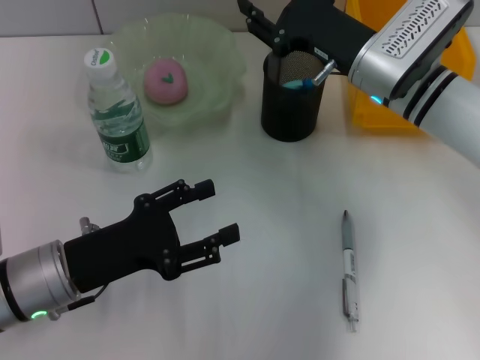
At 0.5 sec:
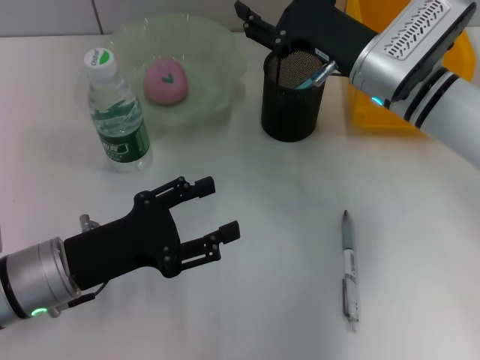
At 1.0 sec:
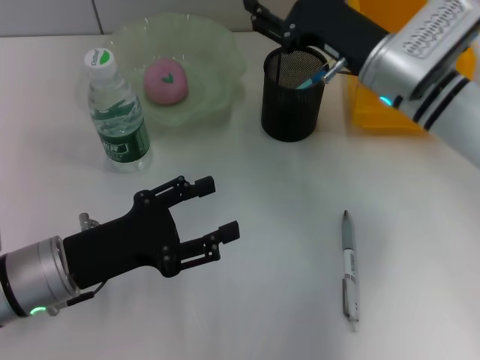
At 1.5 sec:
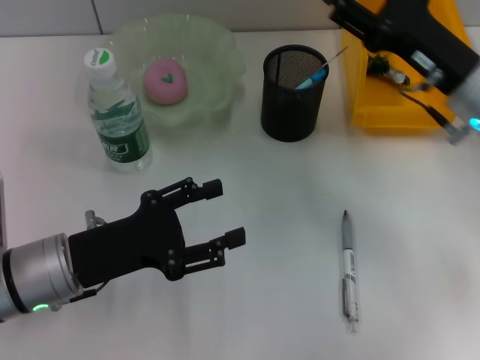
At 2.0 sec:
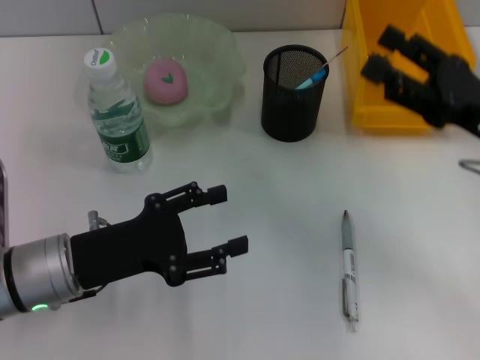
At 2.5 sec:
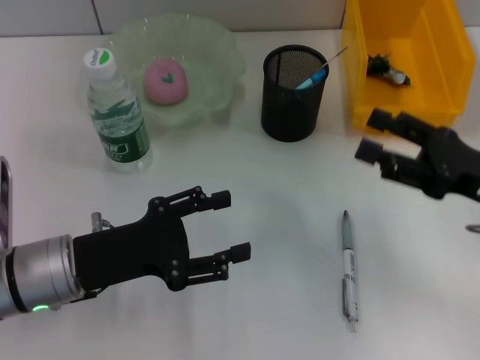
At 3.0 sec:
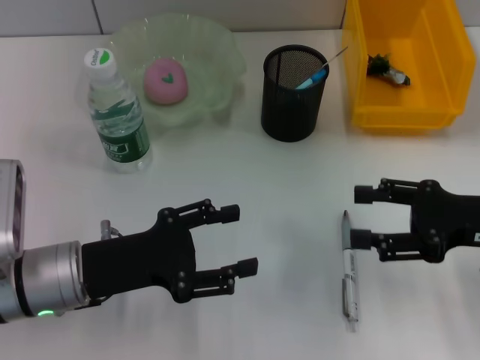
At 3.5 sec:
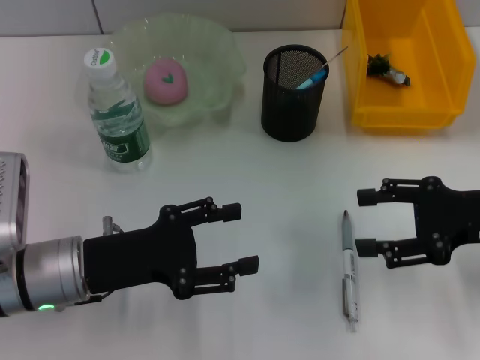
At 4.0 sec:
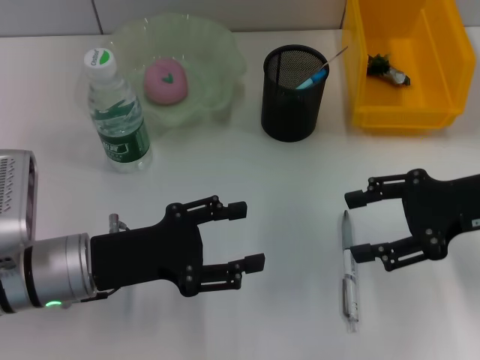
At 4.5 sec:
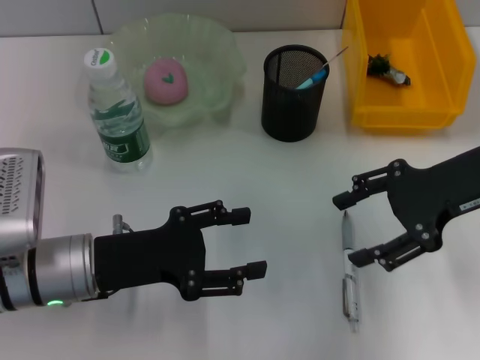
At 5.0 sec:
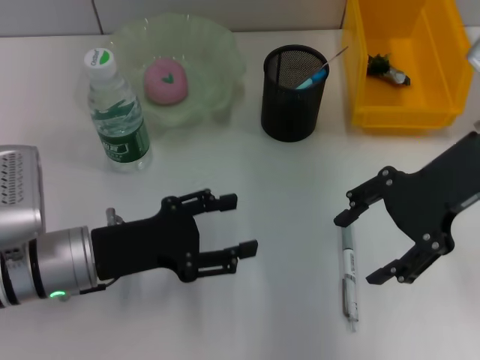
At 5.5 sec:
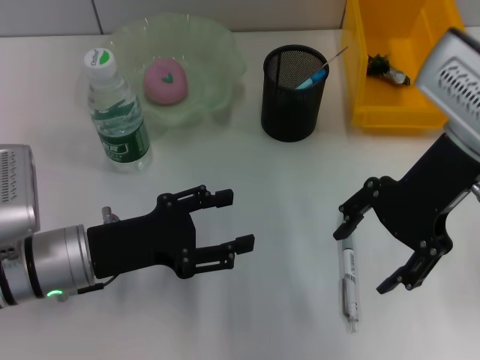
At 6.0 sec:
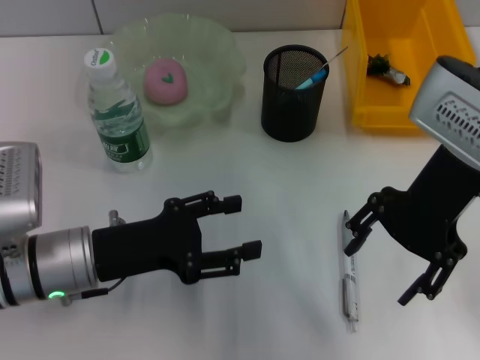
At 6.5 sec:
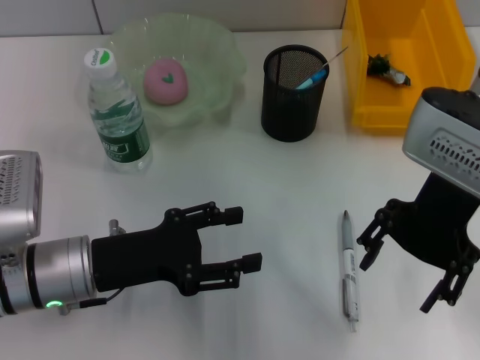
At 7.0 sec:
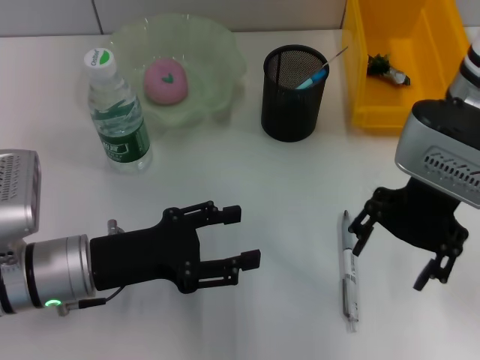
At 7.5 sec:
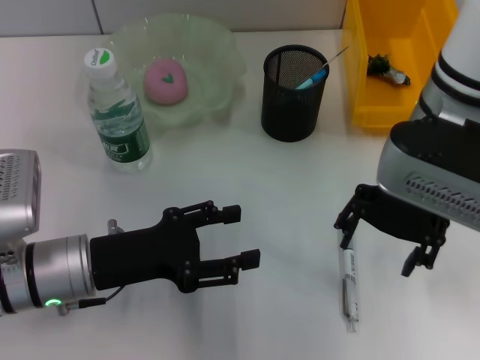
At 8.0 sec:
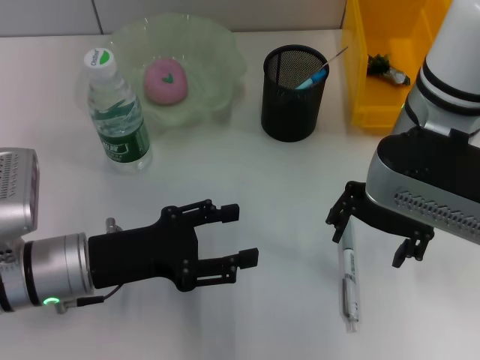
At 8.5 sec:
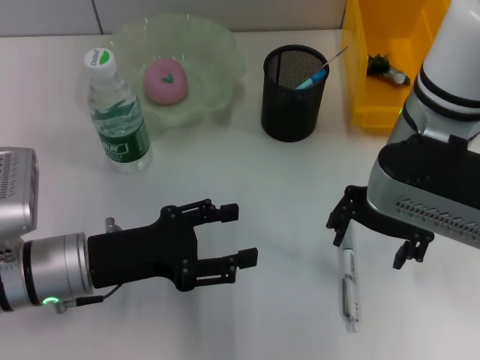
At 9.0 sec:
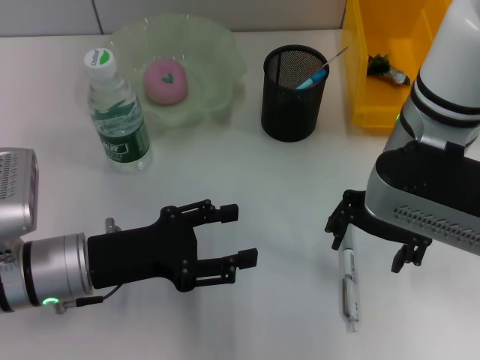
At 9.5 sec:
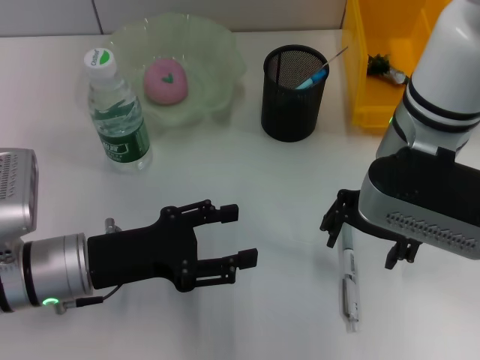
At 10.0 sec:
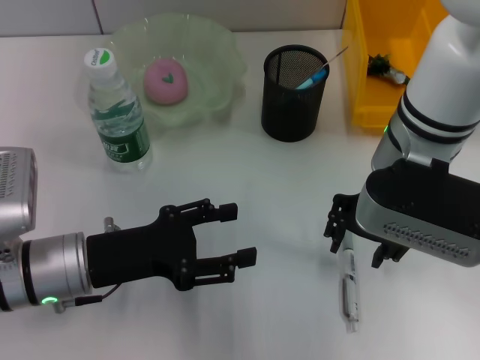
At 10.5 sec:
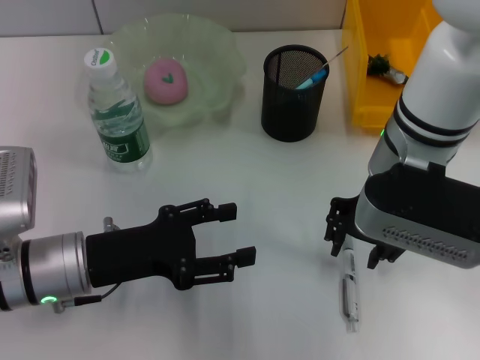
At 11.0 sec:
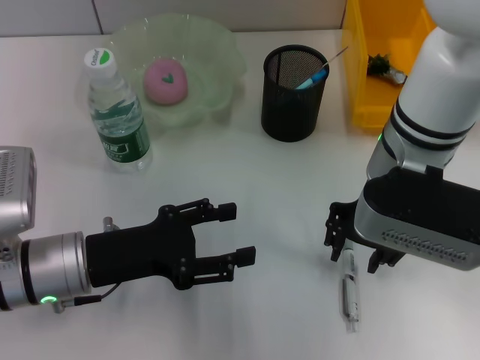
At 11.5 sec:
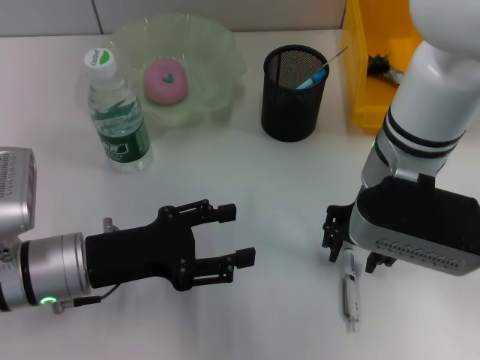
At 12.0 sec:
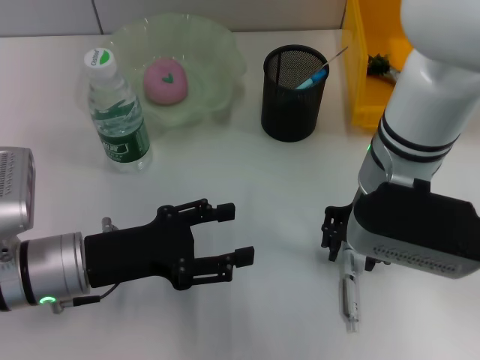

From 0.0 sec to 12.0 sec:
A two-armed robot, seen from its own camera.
From 0.0 sec to 2.0 sec: The right gripper moves to the right and backward, about 15 cm, and opens.
From 4.0 sec to 6.0 sec: The right gripper heads to the left and upward, covering roughly 15 cm.
From 6.0 sec to 8.0 sec: The right gripper shifts by some 5 cm.
From 8.0 sec to 10.0 sec: The grippers make only small movements.
From 10.0 sec to 12.0 sec: The right gripper closes up.

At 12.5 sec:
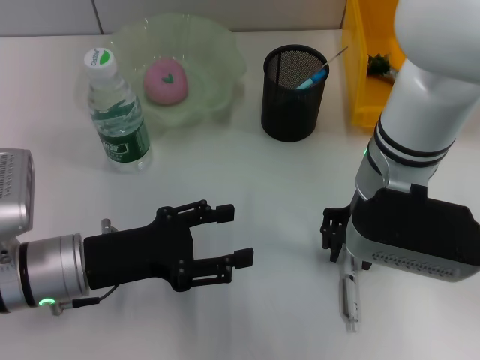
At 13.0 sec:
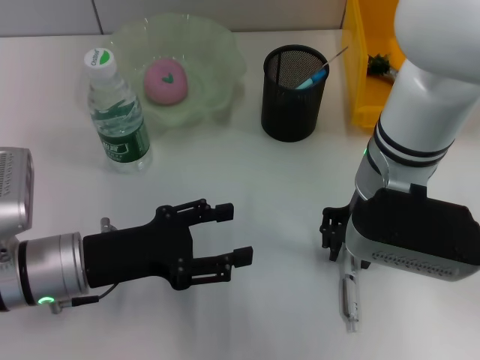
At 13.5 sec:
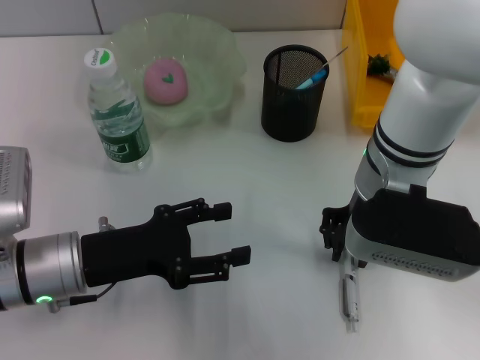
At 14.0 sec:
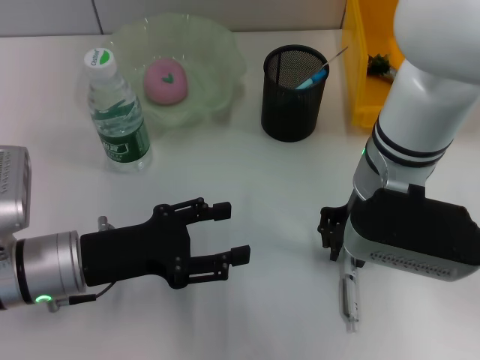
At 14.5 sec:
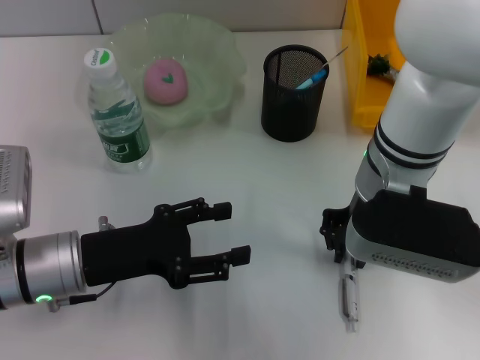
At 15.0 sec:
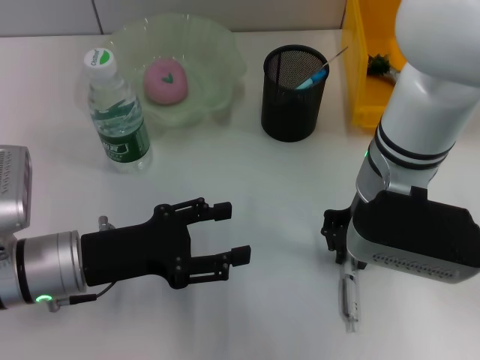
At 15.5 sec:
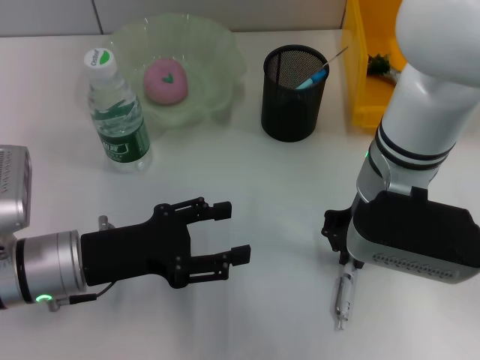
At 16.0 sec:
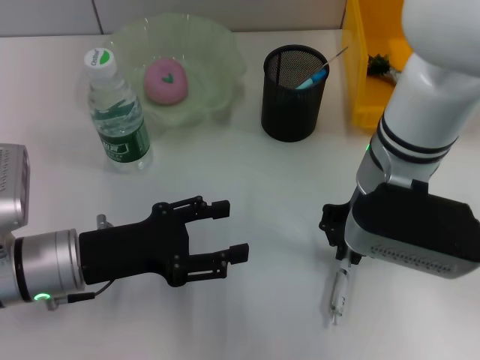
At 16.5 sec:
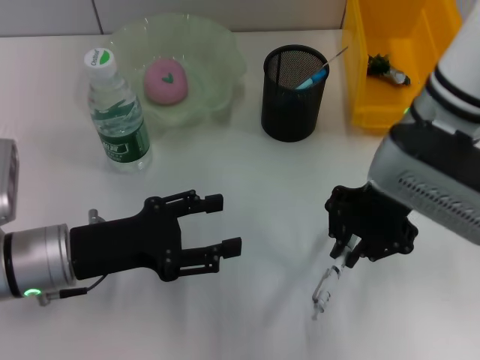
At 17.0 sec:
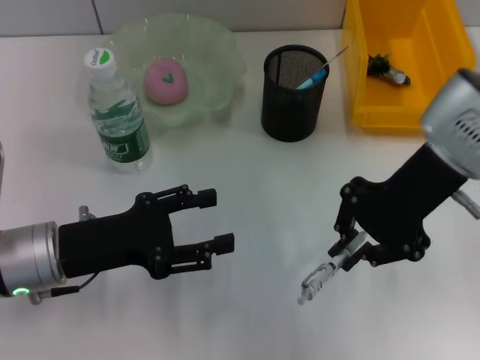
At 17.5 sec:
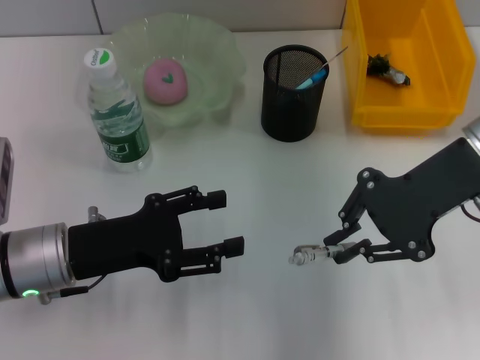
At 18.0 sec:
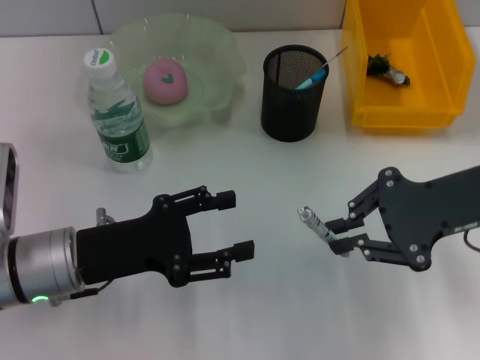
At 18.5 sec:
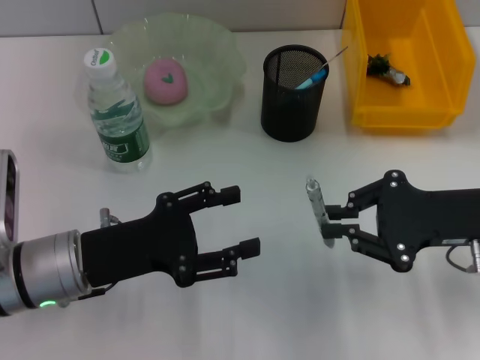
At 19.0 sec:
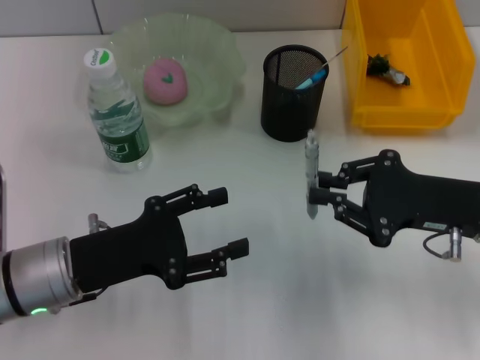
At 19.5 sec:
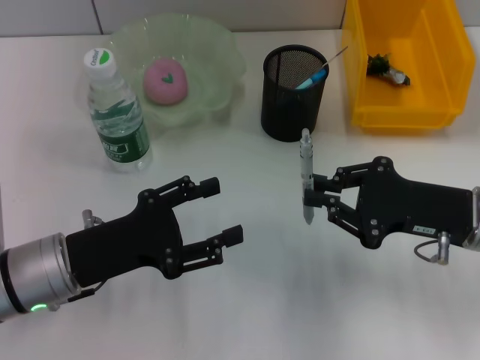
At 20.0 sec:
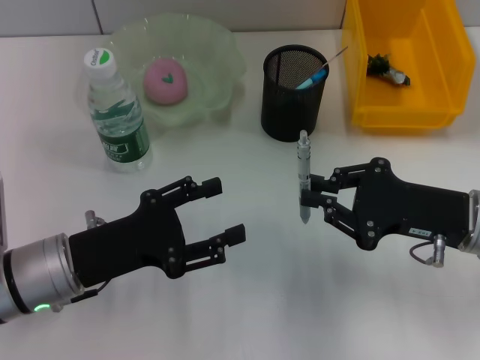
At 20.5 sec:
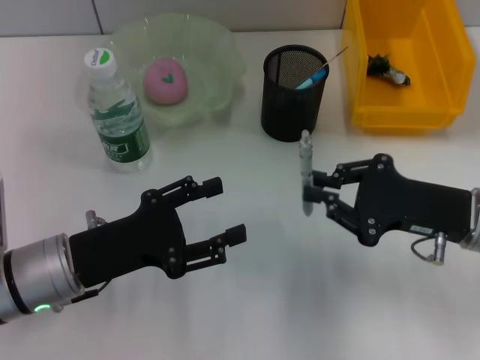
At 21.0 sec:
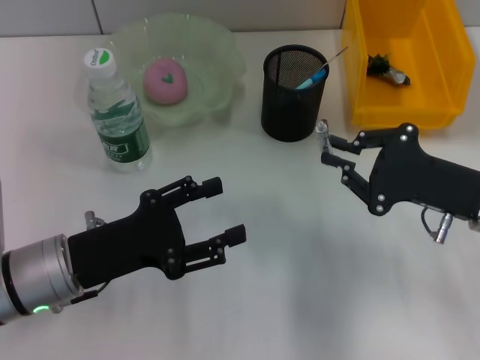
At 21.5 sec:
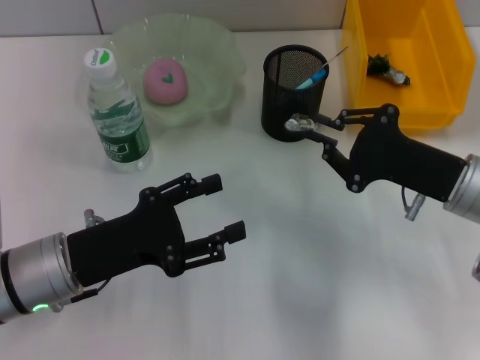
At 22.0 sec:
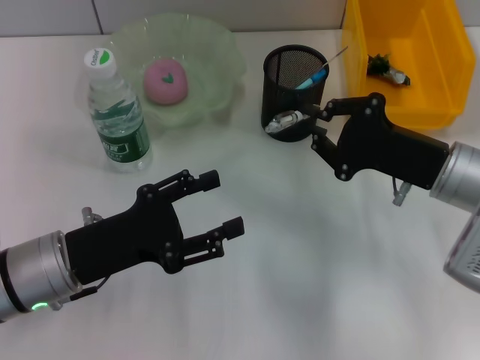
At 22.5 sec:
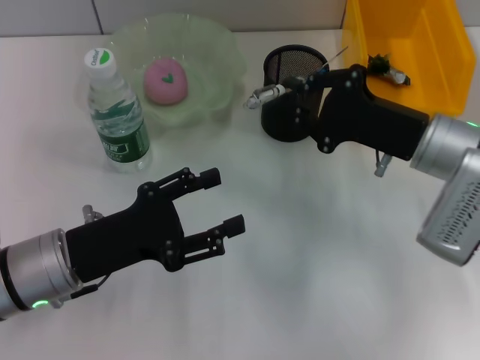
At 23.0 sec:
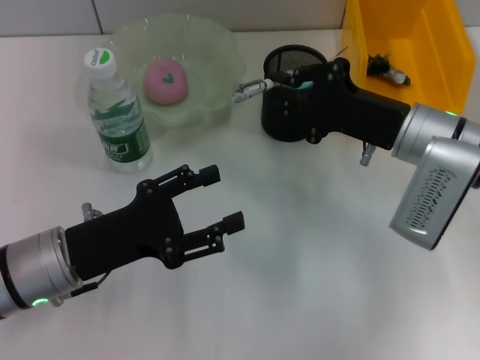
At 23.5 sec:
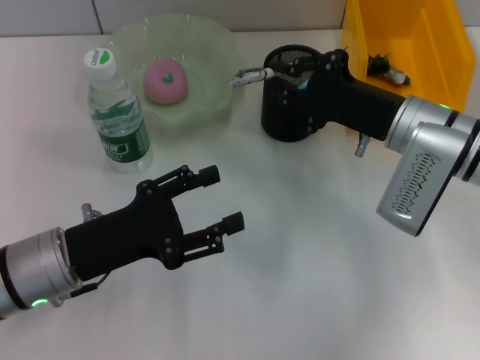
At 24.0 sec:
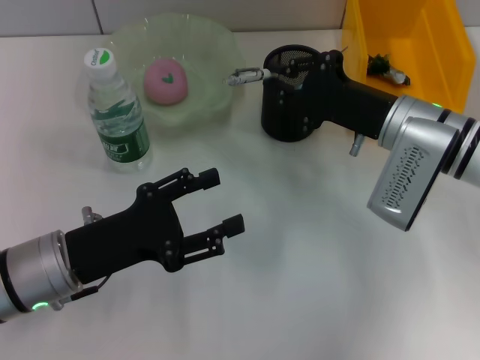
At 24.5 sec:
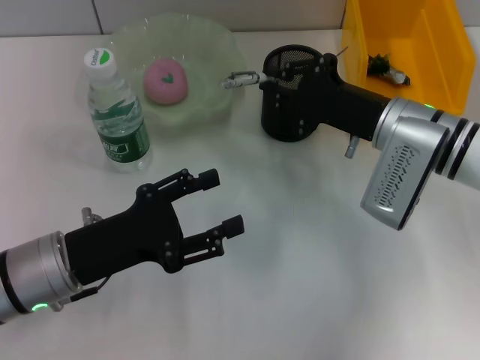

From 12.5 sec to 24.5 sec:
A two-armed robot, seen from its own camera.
Step, from 12.5 sec to 15.0 sec: Grab the gray spring-action pen with the right hand.
From 12.5 sec to 14.5 sec: Neither gripper changes place.
From 14.5 sec to 16.5 sec: The right gripper shifts by about 5 cm.
From 16.5 sec to 18.5 sec: The right gripper travels to the right, downward and backward by about 15 cm.
From 18.5 sec to 20.5 sec: The grippers stay close to where they were, moving slightly.
From 20.5 sec to 22.5 sec: The right gripper goes some 5 cm forward.
From 22.5 sec to 24.5 sec: The grippers move only a little.

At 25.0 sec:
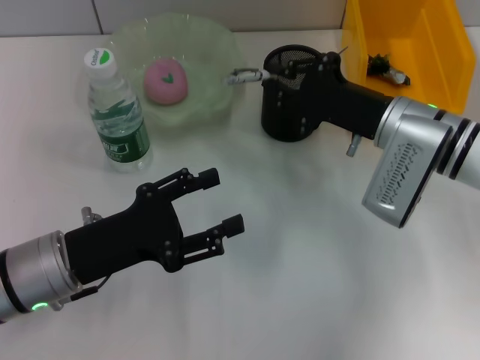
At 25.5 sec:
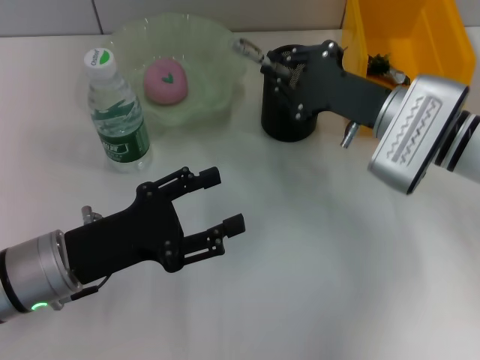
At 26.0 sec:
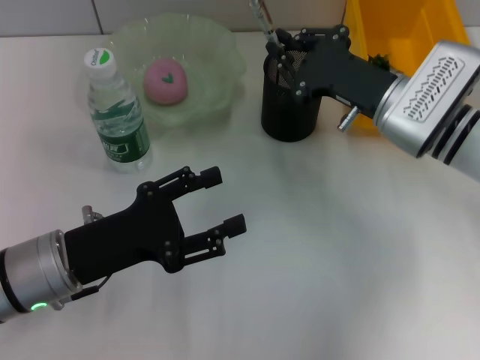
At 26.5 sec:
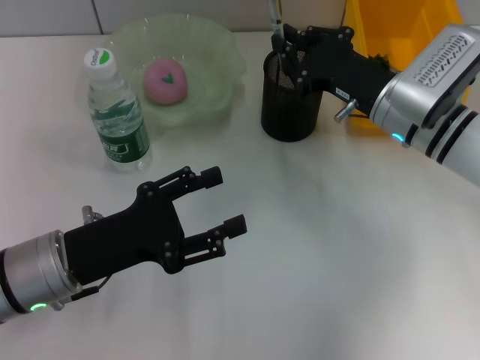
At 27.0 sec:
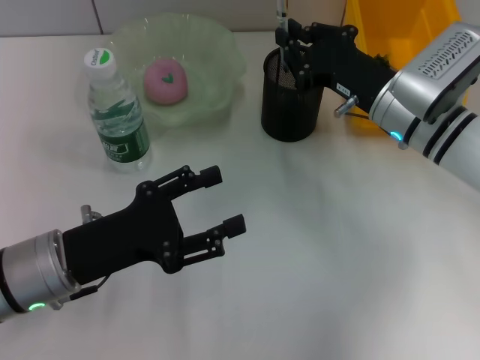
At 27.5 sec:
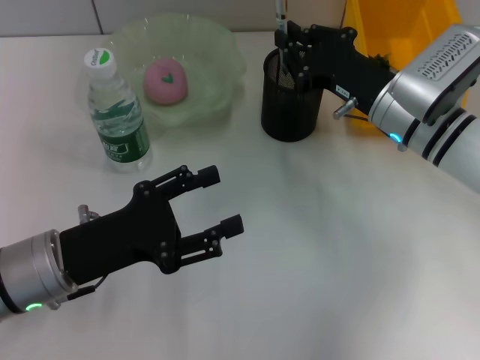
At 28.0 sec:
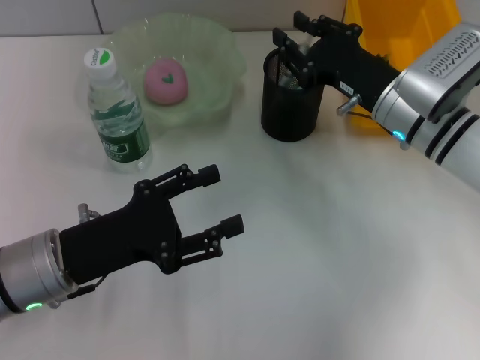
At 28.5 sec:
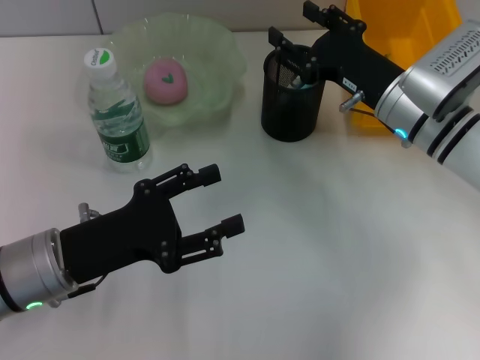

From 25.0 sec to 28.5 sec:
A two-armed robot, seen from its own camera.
Step, from 25.0 sec to 28.5 sec: Place the gray spring-action pen into the pen holder with the right hand.
From 27.0 sec to 28.5 sec: The right gripper opens.
